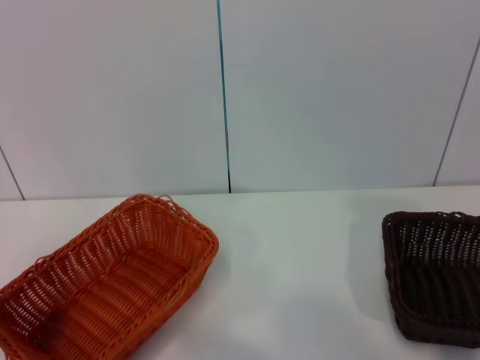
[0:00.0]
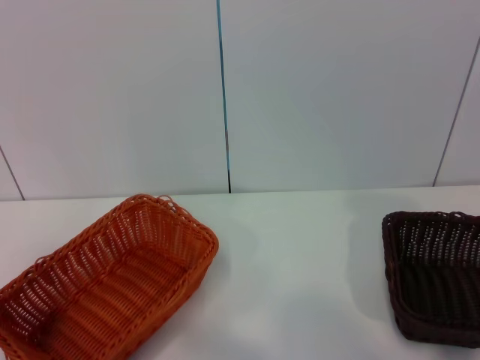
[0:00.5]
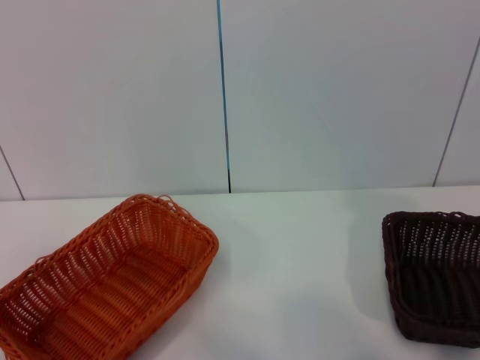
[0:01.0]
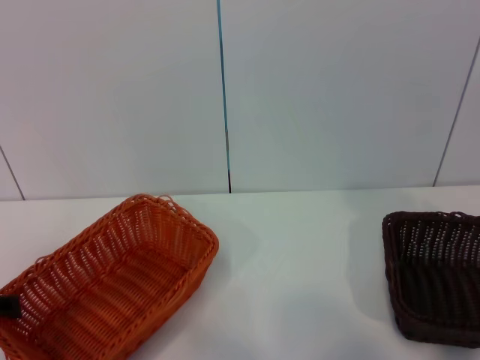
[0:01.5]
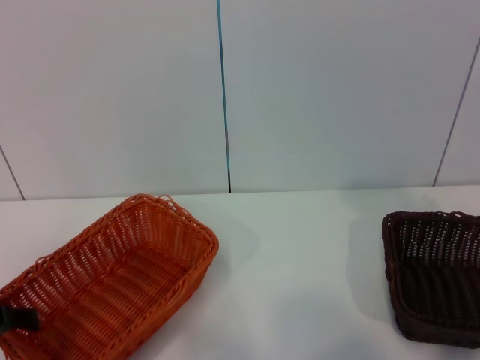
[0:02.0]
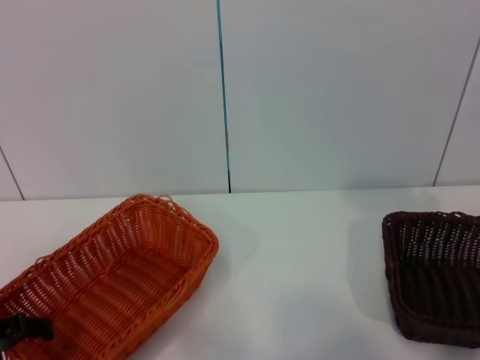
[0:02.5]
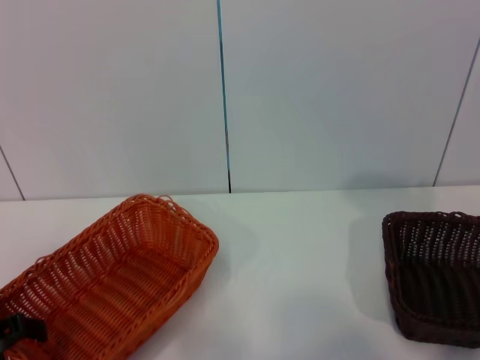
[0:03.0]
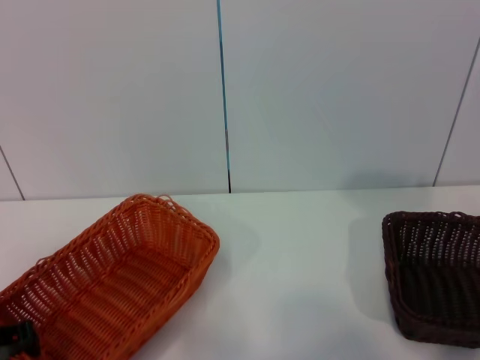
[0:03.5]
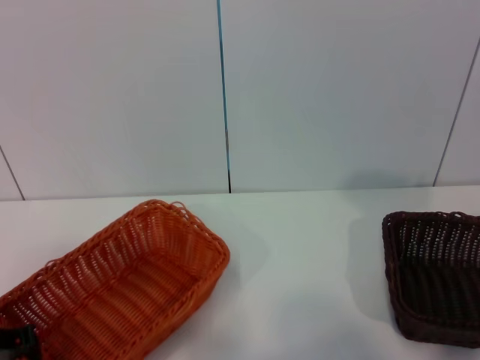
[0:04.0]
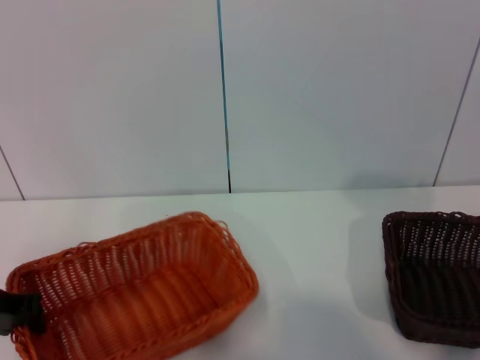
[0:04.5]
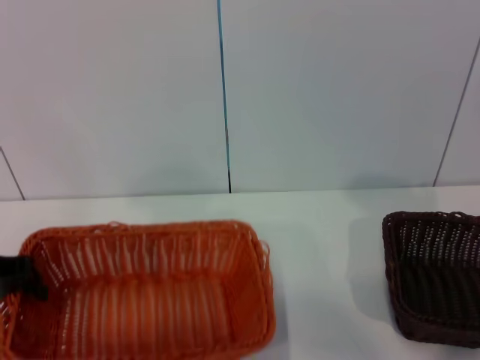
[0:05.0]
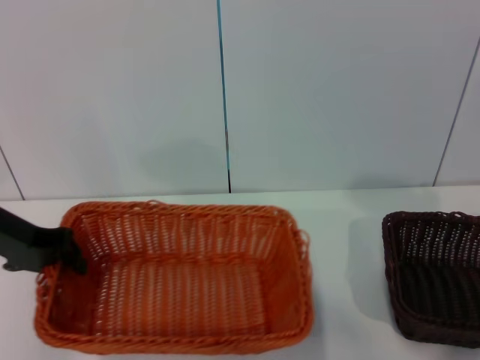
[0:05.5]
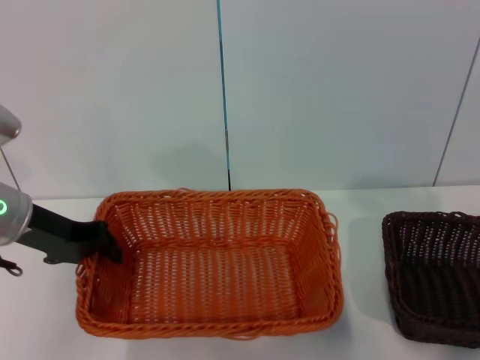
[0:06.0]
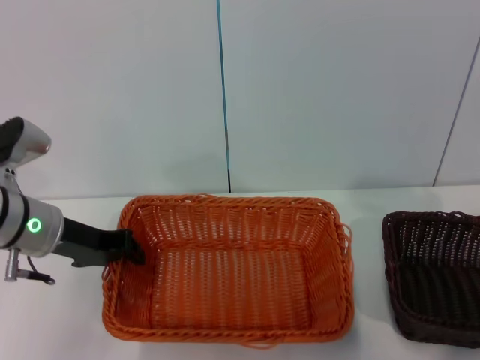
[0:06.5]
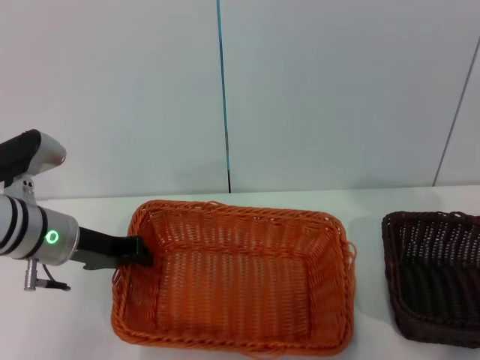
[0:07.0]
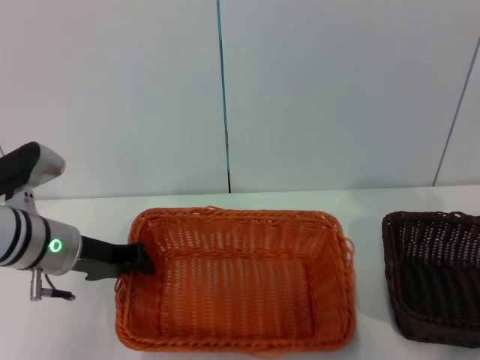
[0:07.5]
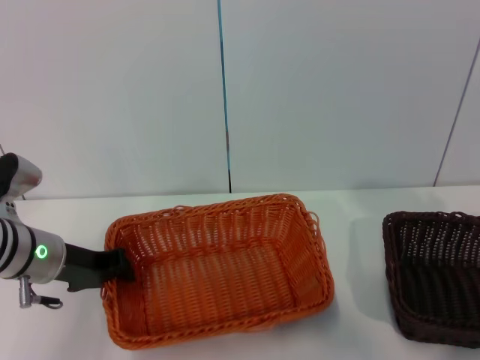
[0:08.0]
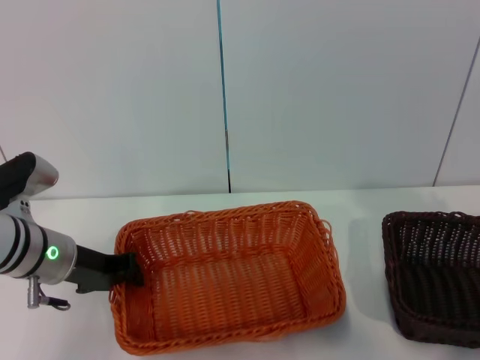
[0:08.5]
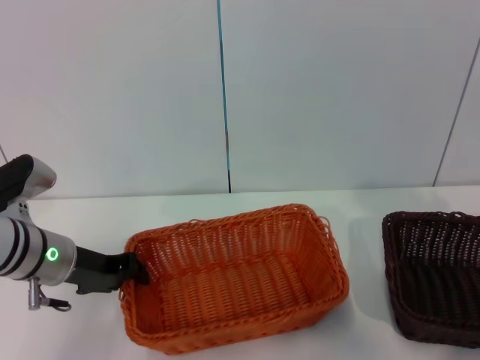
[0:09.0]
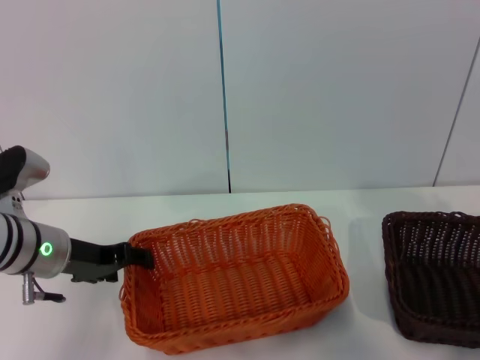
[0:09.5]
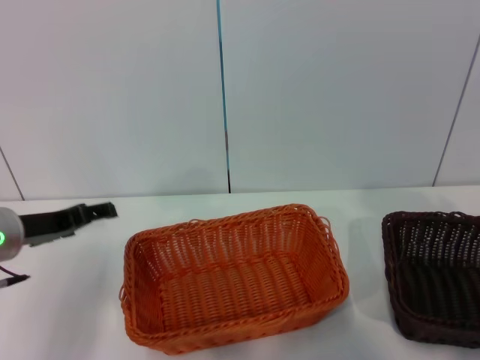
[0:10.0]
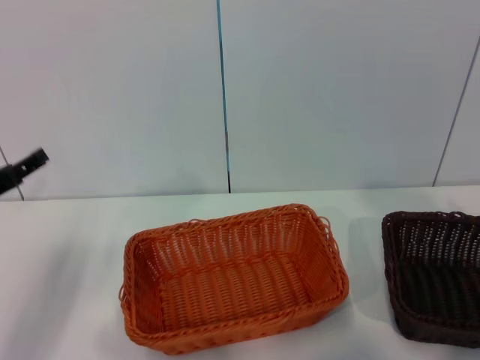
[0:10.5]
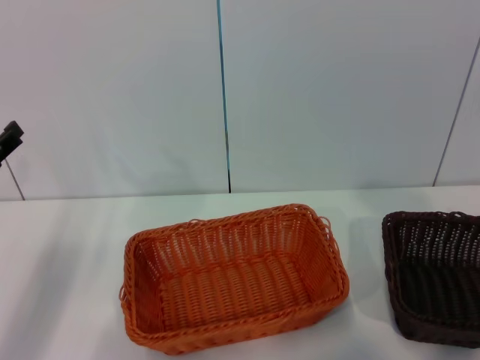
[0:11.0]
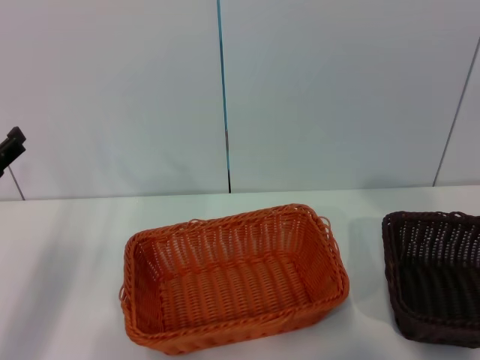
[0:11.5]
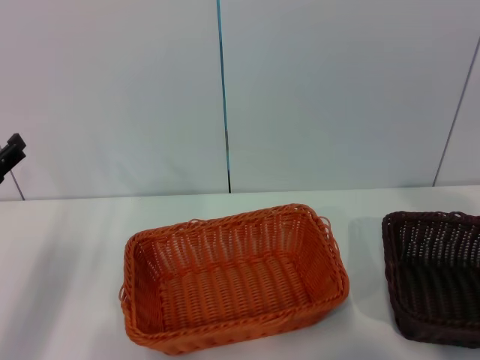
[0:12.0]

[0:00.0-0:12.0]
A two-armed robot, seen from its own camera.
Step, 0:00.0 to 0:04.5: Pick up the light basket with the left gripper.
Step, 0:05.5 to 0:09.0: Place the light basket in the center of view with the left gripper.
0:02.0 to 0:04.0: The left gripper closes up.
0:04.0 to 0:06.0: The left gripper is displaced forward and upward by some 10 cm.
0:06.0 to 0:08.0: The left gripper moves downward, some 5 cm.
0:08.0 to 0:10.0: The left gripper opens its fingers.
0:10.0 to 0:12.0: The left gripper goes roughly 5 cm to the left.

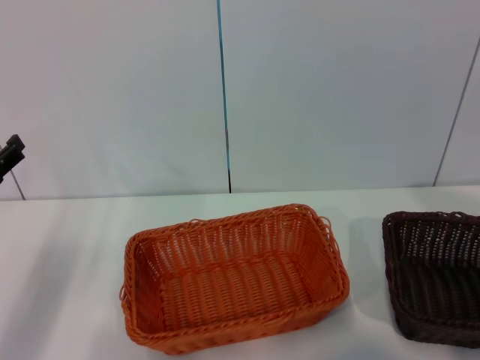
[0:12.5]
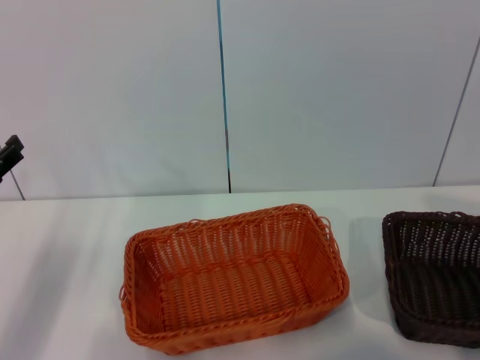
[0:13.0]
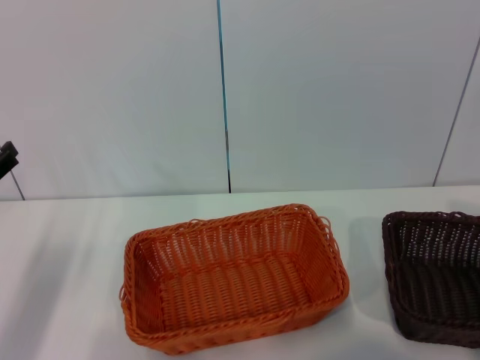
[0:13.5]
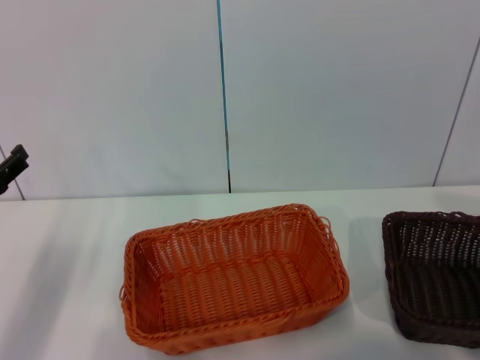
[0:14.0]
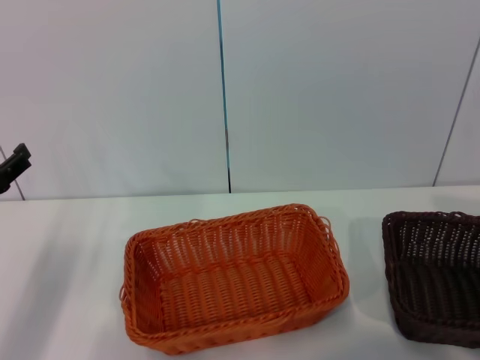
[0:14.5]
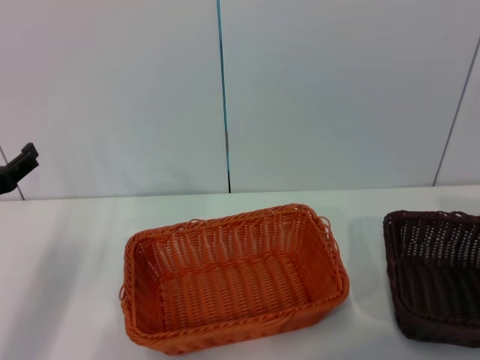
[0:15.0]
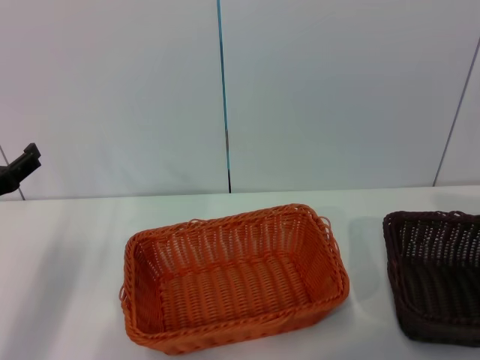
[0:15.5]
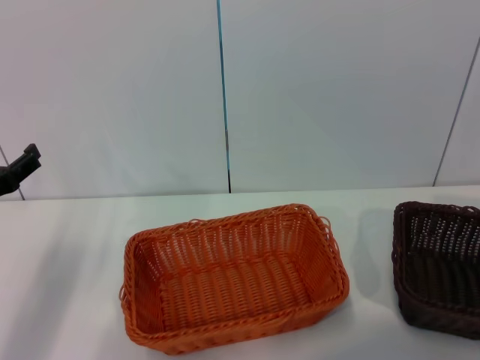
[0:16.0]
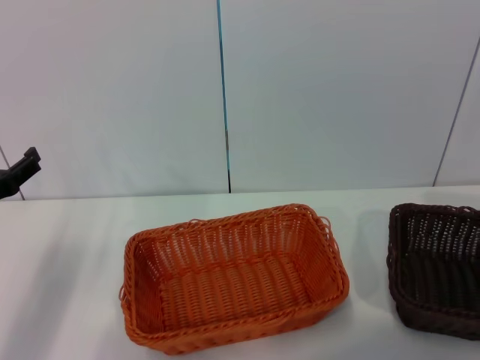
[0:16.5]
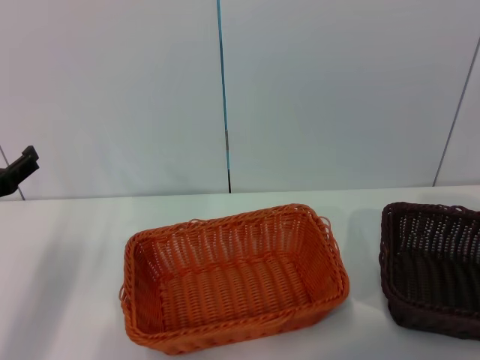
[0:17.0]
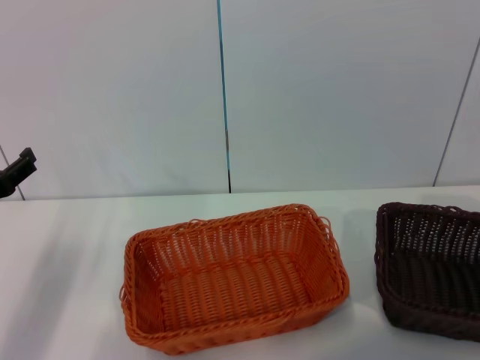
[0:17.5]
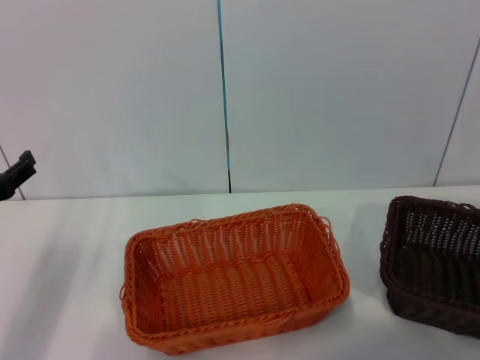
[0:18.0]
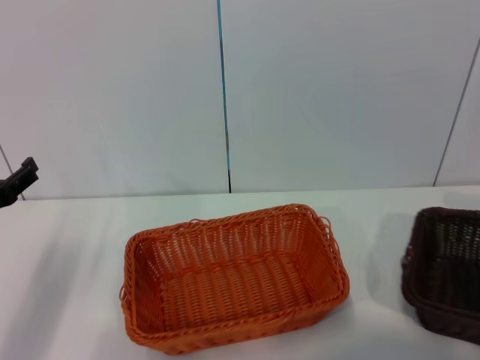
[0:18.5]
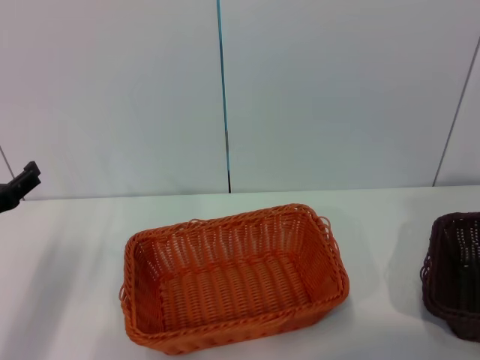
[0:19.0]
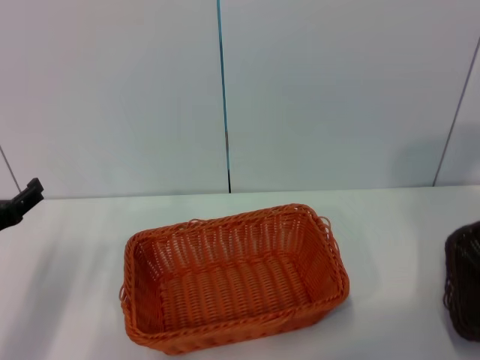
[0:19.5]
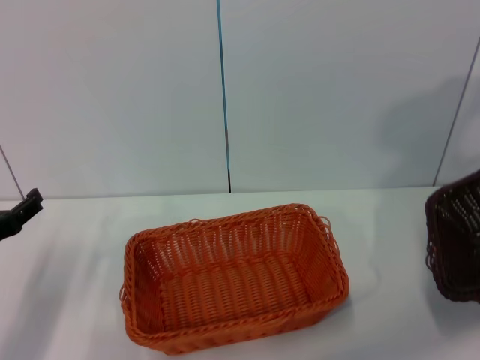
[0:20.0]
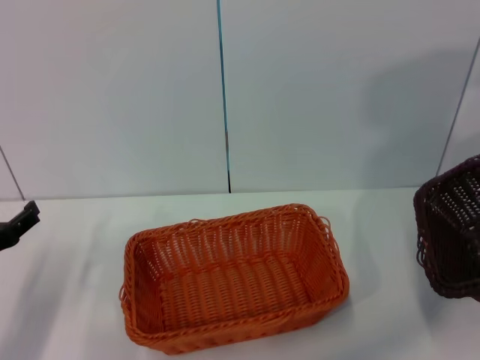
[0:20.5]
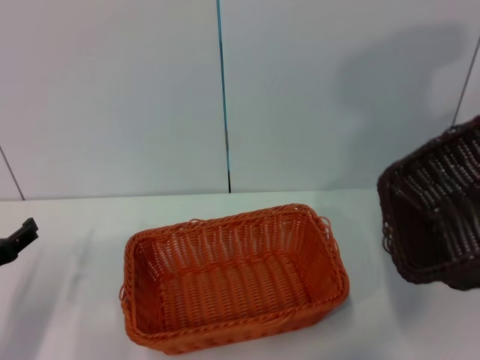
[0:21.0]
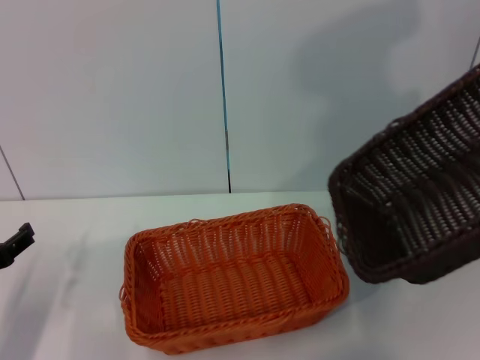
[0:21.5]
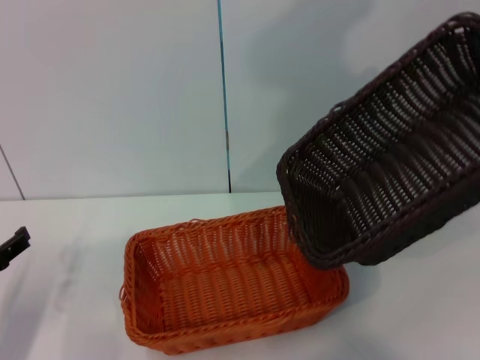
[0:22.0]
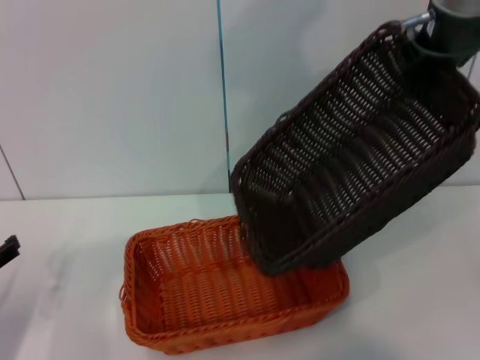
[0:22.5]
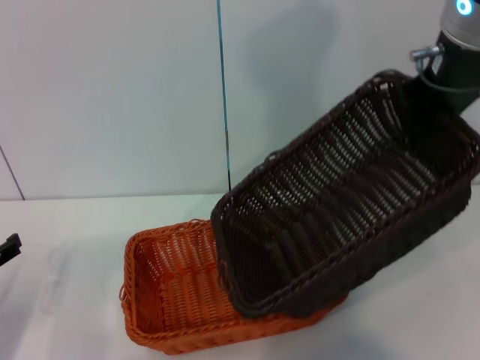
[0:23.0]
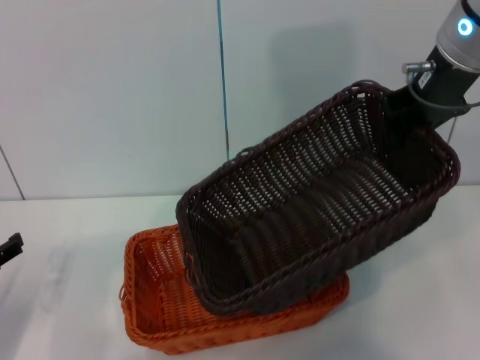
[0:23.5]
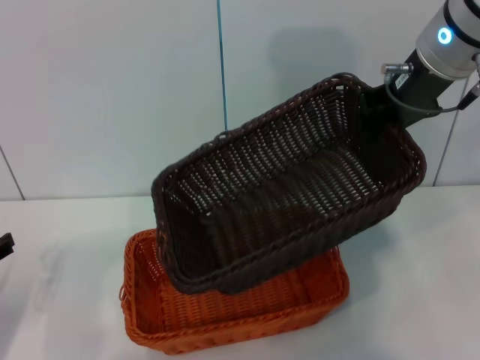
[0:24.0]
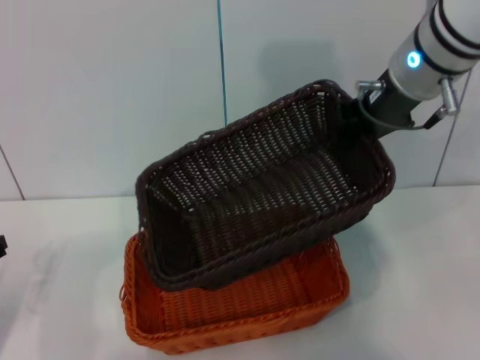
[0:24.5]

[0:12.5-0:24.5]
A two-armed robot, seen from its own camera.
Step, 0:12.5 to 0:19.0: Pick up the dark basket with the right gripper.
0:14.5 to 0:16.5: The grippers stay close to where they were, moving slightly.
0:16.5 to 0:18.5: The right gripper changes place by approximately 5 cm, and closes its fingers.
0:18.5 to 0:20.5: The right gripper moves upward, roughly 20 cm.
0:20.5 to 0:22.5: The right gripper moves to the left, approximately 20 cm.
0:22.5 to 0:24.5: The right gripper moves downward, roughly 10 cm.

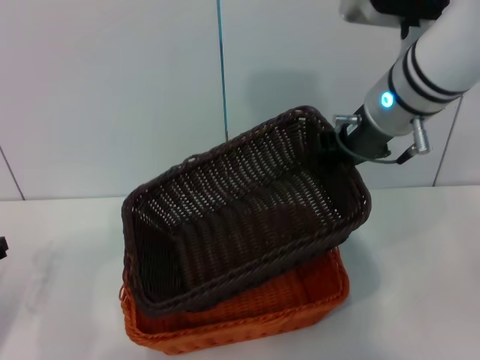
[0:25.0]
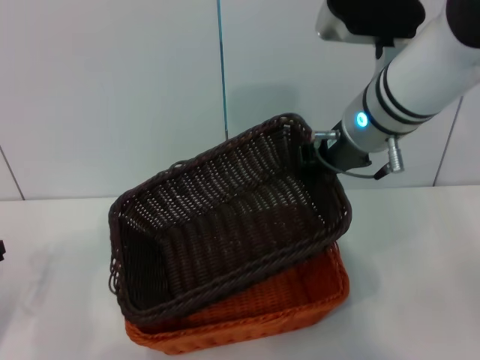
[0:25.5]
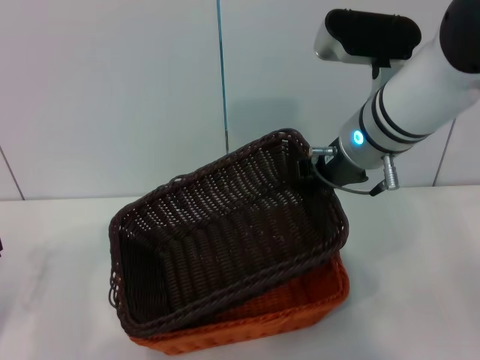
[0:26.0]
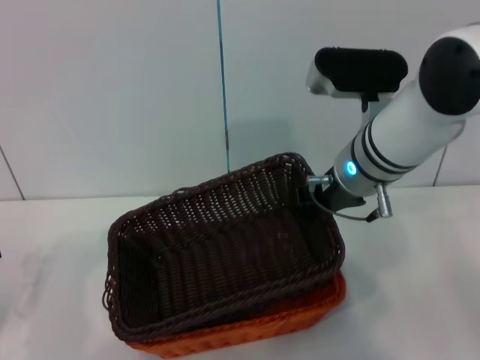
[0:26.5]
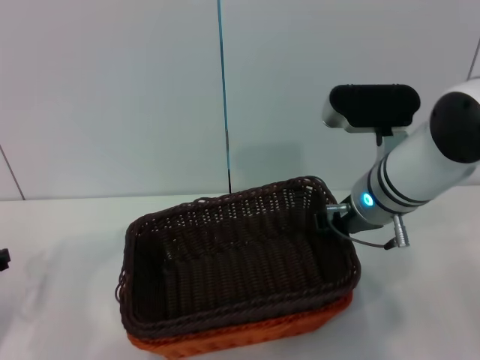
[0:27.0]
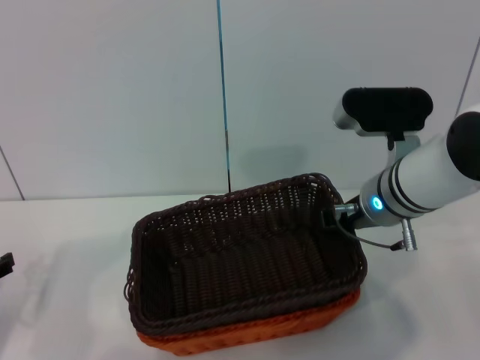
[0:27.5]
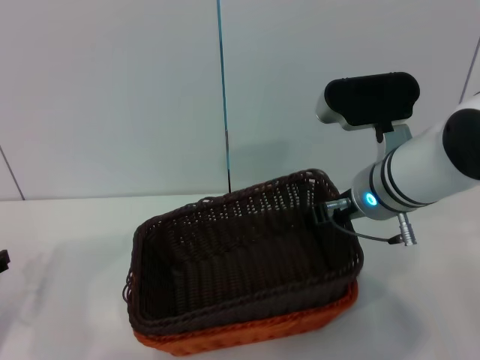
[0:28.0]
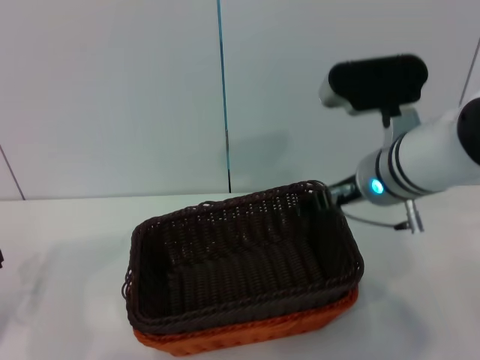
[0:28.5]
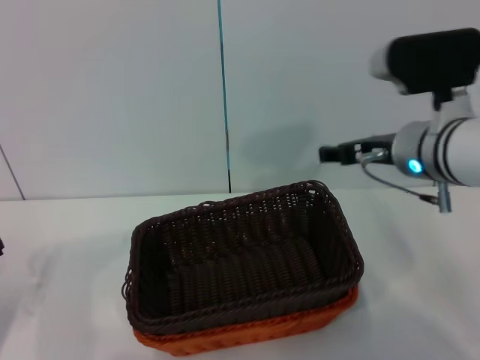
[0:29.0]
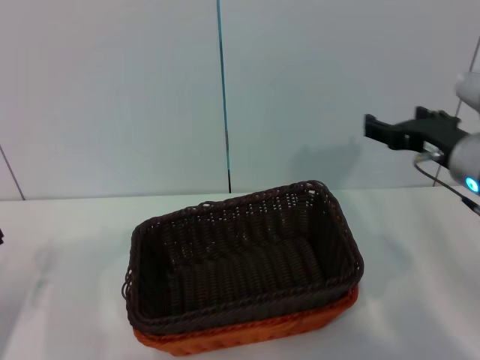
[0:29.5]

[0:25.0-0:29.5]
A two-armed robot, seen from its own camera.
Step, 0:25.0 to 0:28.5: Place the dark basket on the light basket with the right gripper.
0:25.0 to 0:27.0: The right gripper shifts about 10 cm downward.
0:27.0 to 0:29.5: The right gripper travels to the right by some 10 cm, and opens up.
